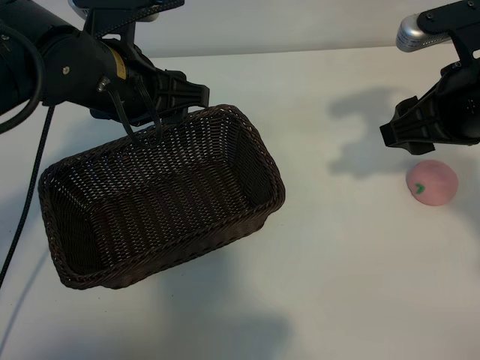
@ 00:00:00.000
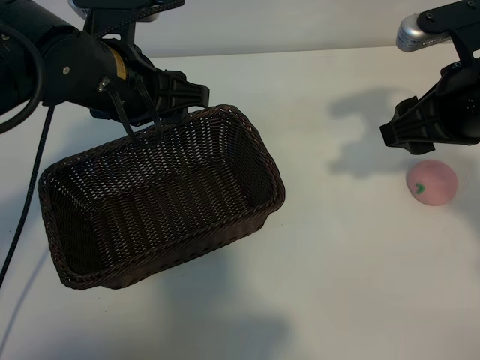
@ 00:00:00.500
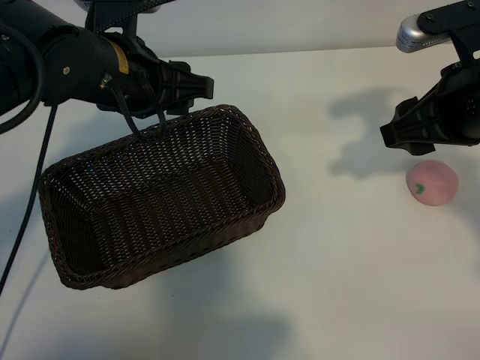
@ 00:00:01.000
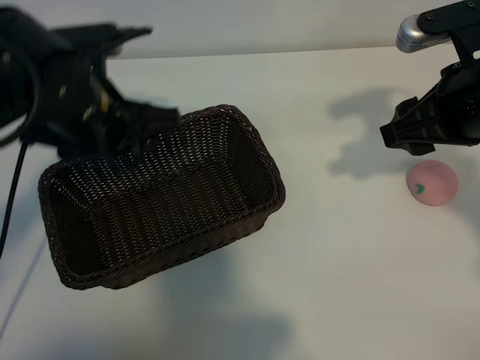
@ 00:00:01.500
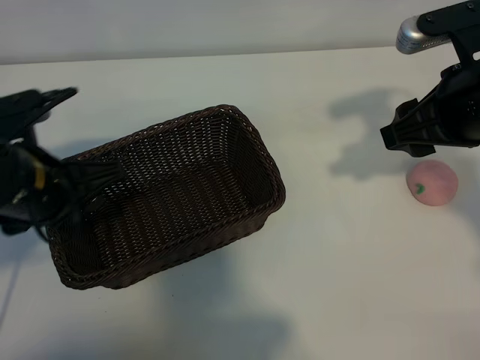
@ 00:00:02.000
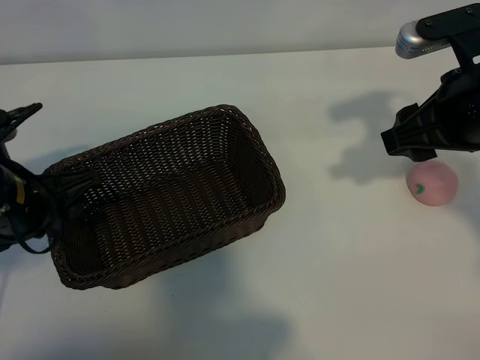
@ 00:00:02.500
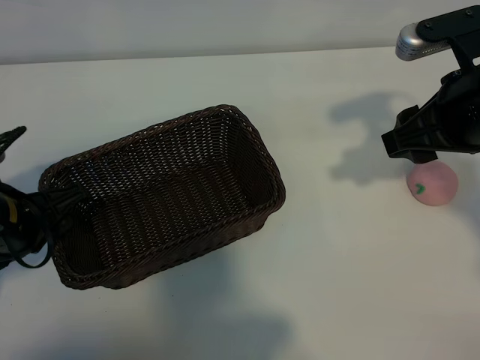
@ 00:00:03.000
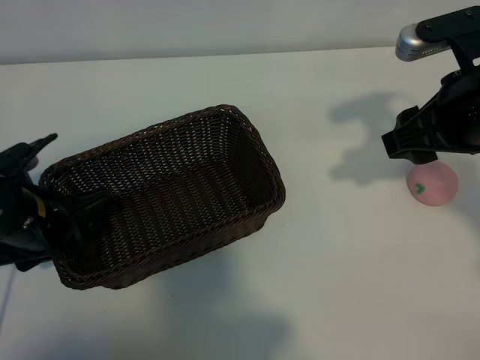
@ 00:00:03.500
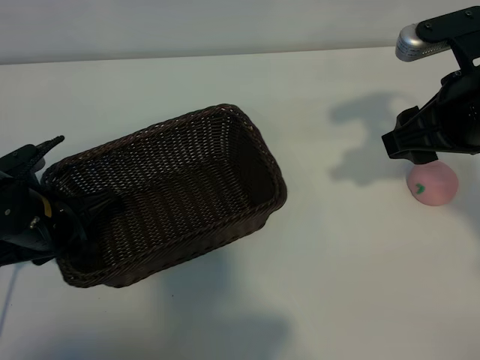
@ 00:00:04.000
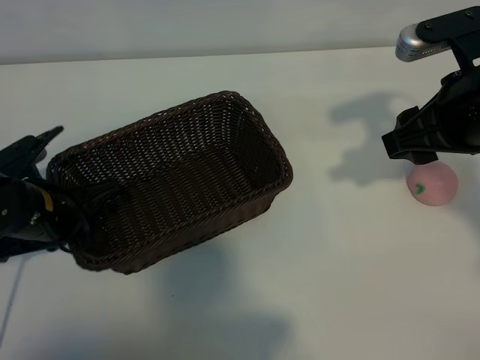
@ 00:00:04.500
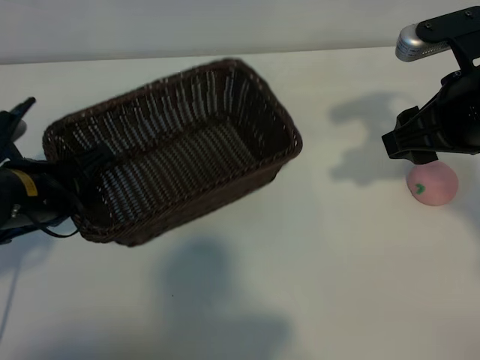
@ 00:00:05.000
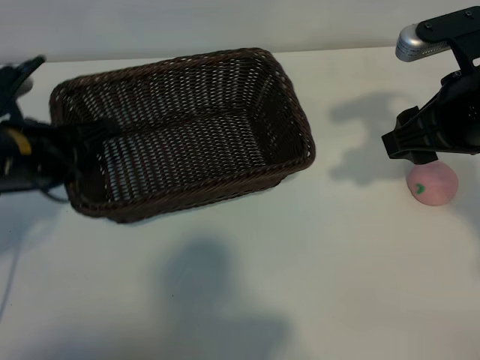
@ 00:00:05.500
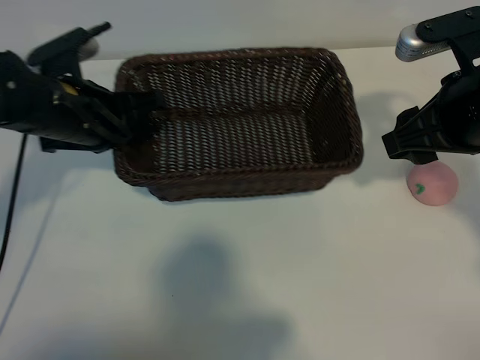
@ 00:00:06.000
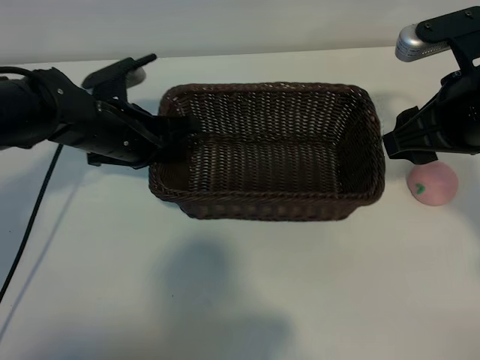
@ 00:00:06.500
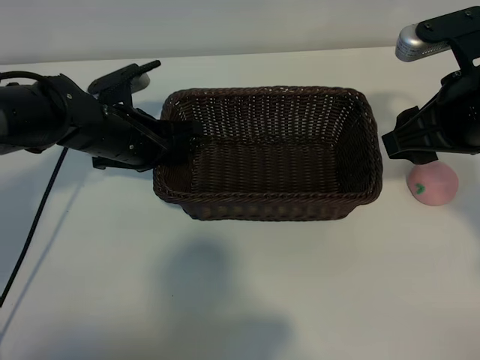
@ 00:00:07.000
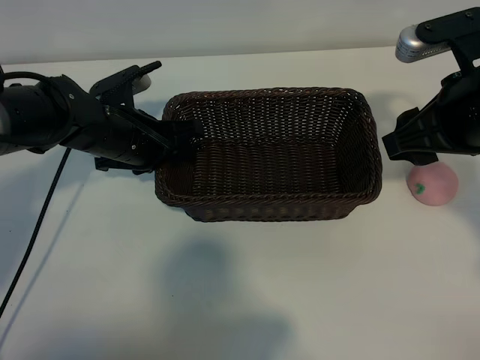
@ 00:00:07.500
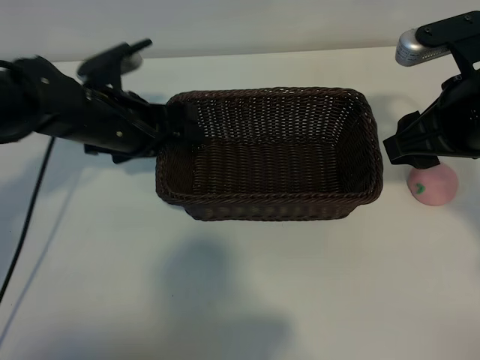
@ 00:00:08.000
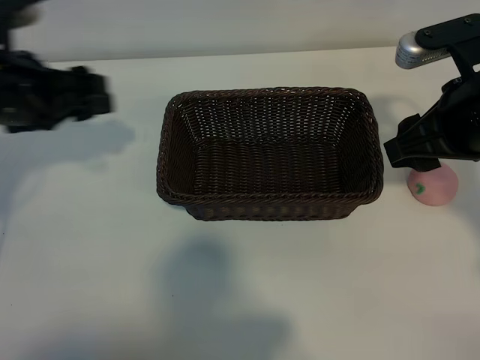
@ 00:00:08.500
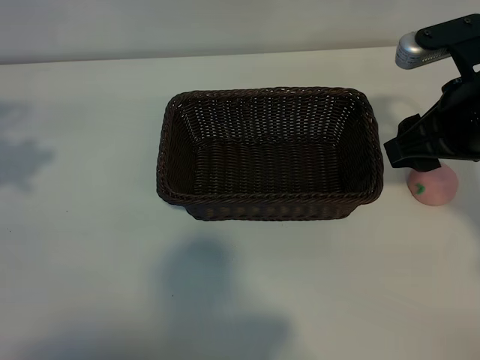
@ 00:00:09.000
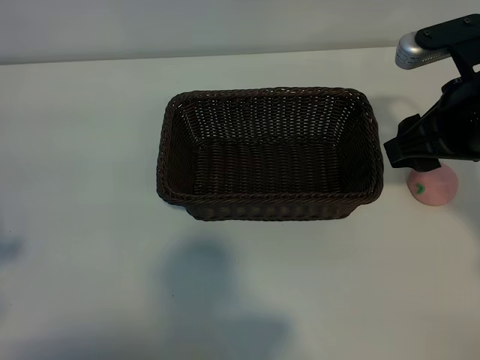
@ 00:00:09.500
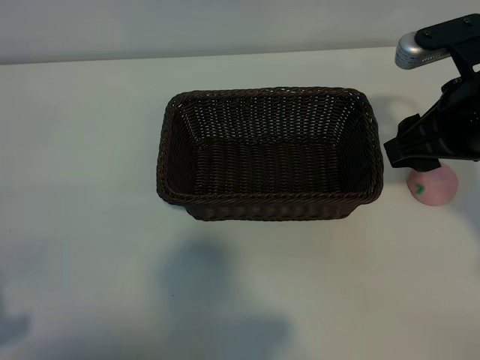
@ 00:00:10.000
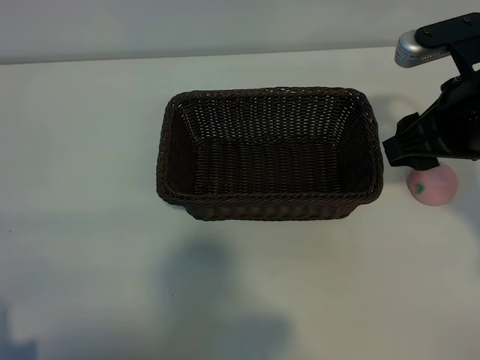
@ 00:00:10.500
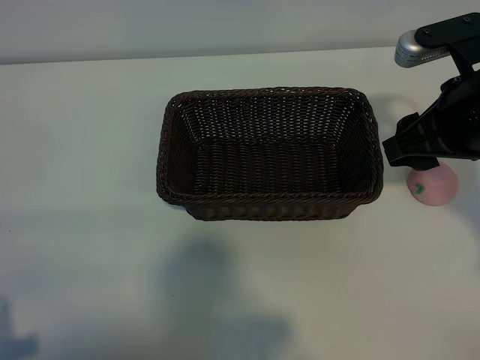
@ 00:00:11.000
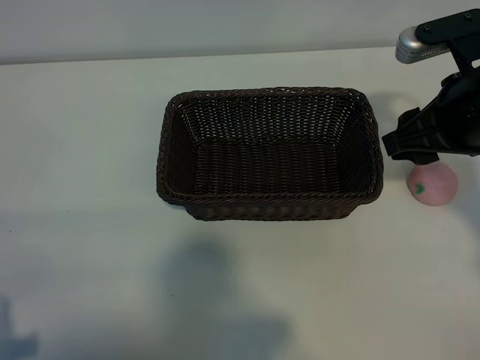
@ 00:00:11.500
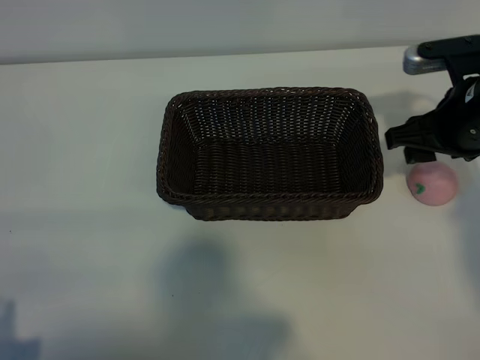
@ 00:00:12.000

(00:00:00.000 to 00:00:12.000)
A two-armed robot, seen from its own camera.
Task of the whole recording: pick up the peach and put it into the basket.
Step, 00:00:01.000 - 00:00:04.000: Grasp the basket with left gripper.
Step, 00:00:04.500 - 00:00:08.000: Place the basket in the center of view with left gripper.

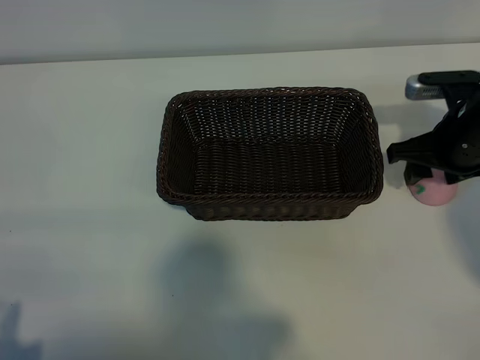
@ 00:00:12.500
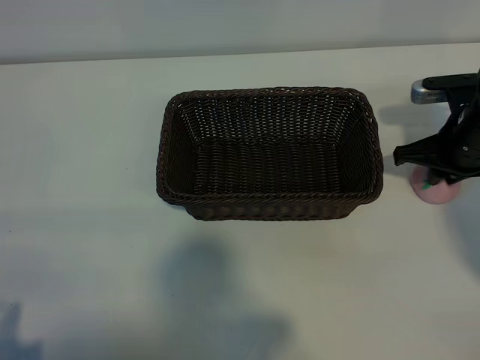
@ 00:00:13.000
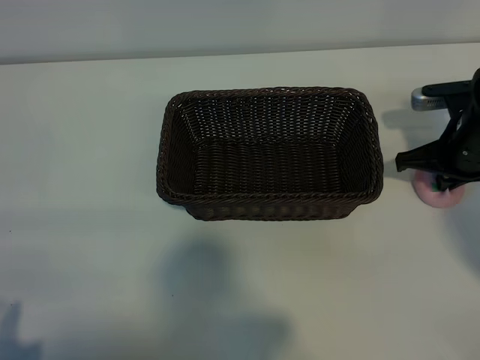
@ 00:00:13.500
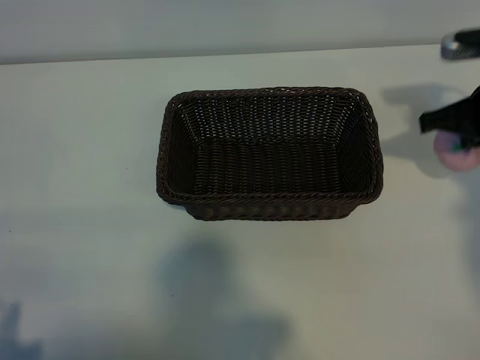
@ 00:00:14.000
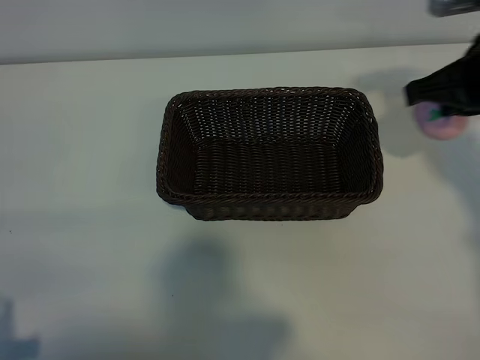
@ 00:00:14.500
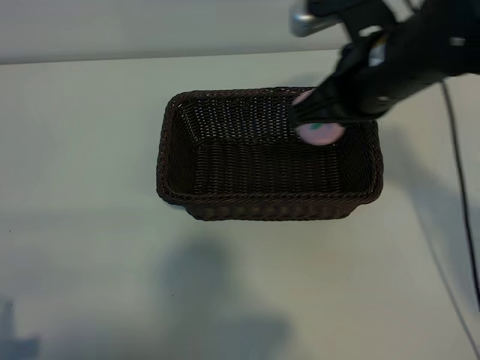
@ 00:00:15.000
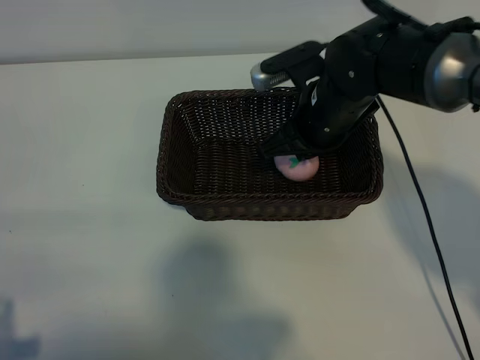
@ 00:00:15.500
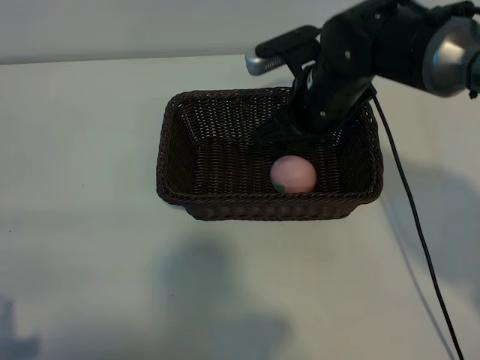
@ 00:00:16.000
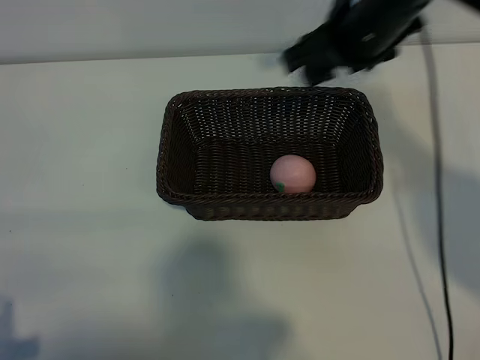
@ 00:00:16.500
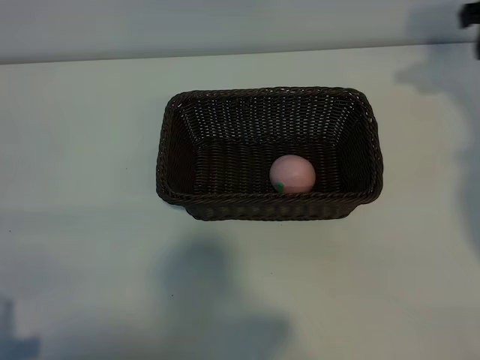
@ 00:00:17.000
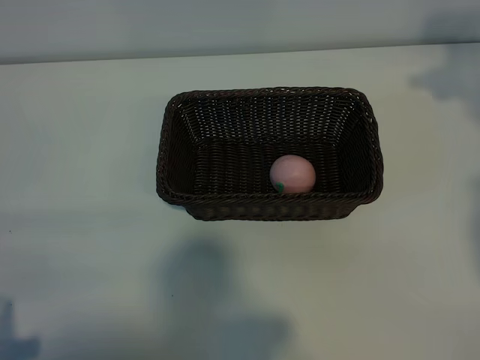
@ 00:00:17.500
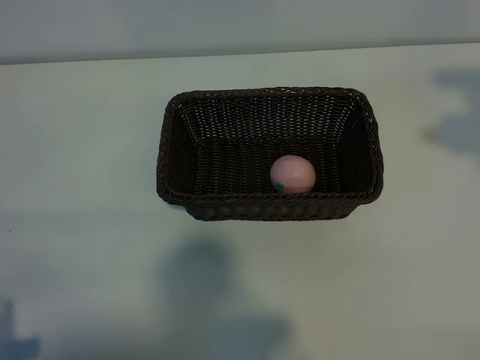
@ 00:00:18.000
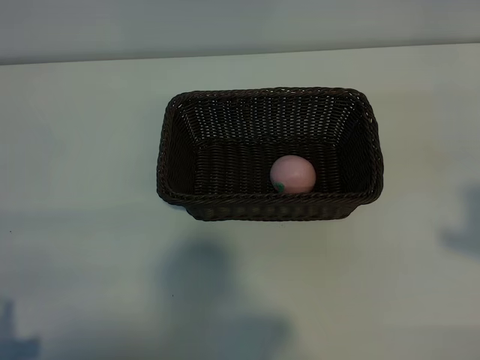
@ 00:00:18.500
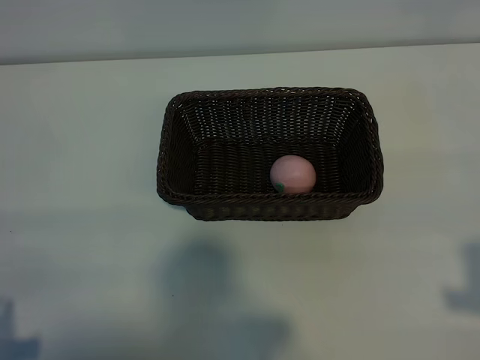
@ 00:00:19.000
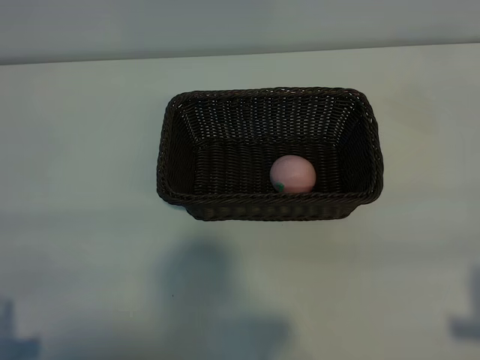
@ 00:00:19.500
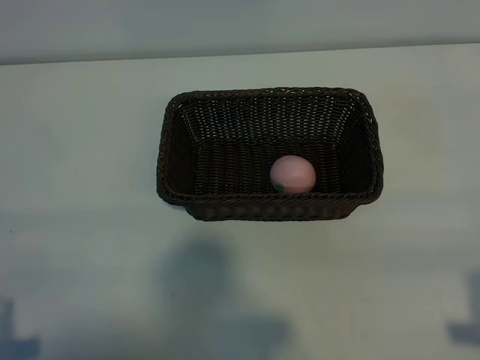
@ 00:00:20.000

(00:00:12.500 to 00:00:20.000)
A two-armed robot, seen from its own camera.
Task of the whole recording: pick up the peach and put it into the basket.
Step, 00:00:13.500 - 00:00:16.000: Place the peach in the basket with right gripper.
